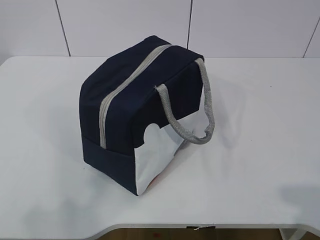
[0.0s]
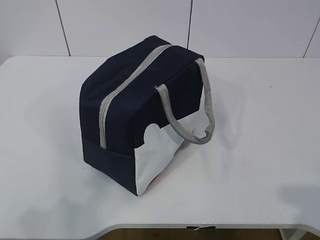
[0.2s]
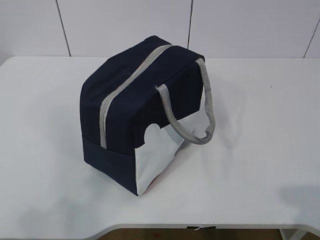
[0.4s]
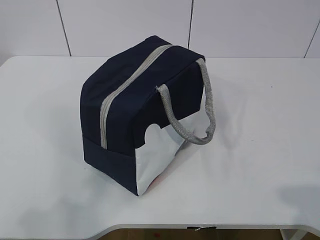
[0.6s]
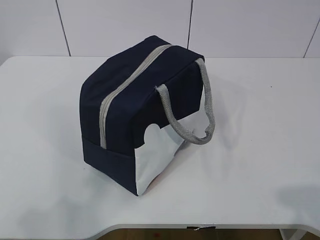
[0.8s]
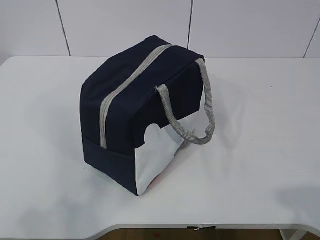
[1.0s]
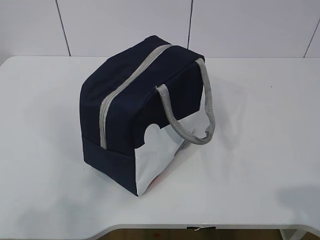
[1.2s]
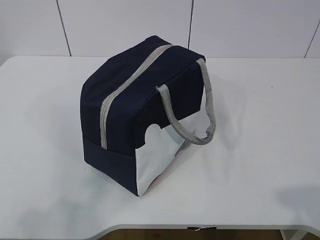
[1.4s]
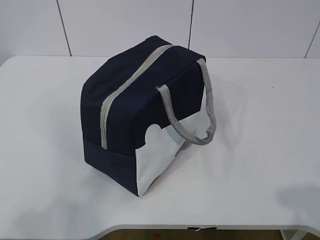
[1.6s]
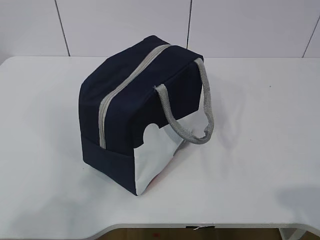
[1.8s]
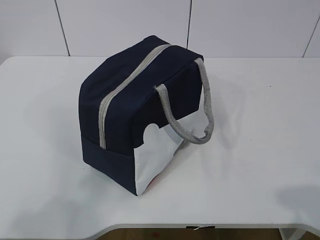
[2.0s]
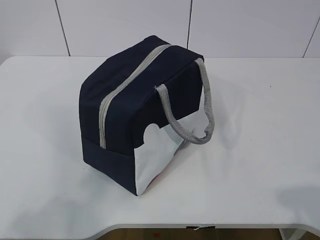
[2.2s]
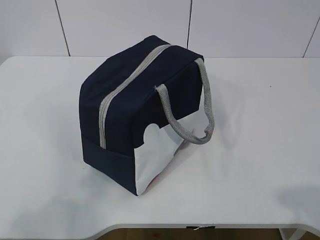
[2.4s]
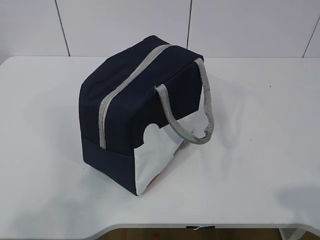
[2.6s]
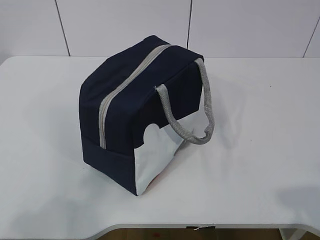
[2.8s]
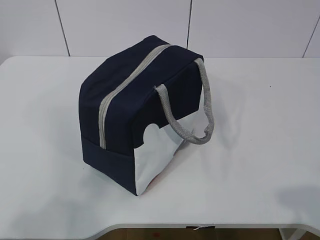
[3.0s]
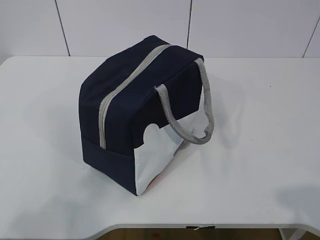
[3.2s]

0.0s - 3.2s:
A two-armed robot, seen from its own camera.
0.0s - 1.6s: There are only small adjustments of the grippers.
1.6s - 3.2s: Neither gripper changes place.

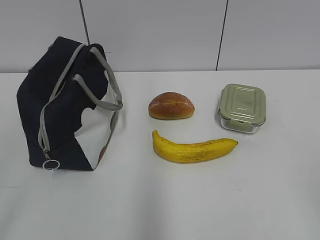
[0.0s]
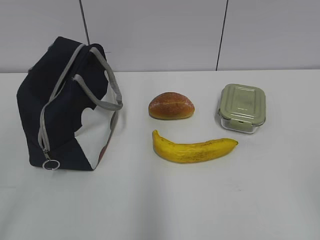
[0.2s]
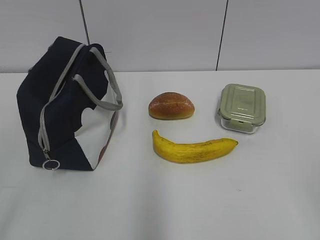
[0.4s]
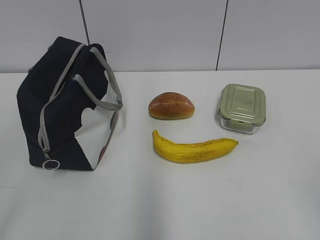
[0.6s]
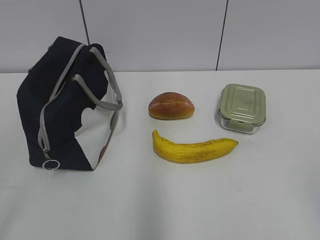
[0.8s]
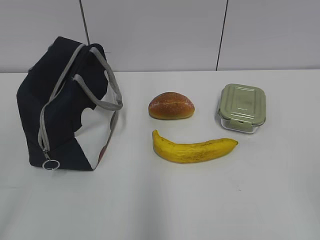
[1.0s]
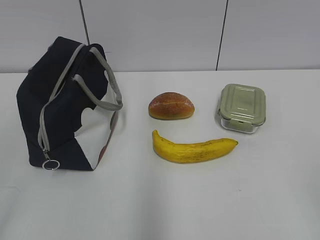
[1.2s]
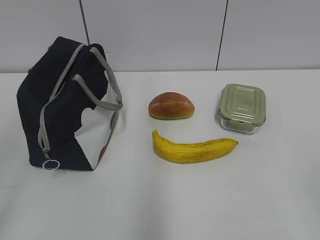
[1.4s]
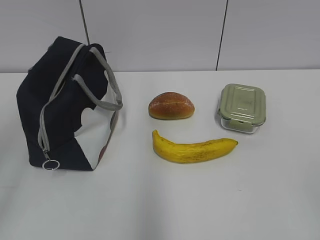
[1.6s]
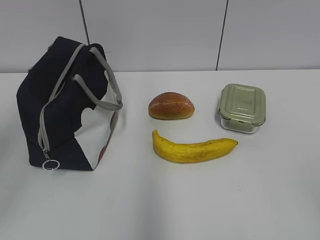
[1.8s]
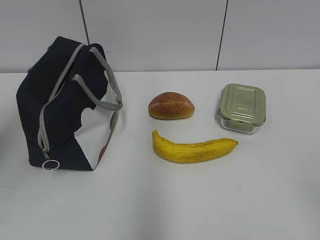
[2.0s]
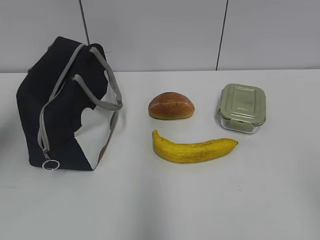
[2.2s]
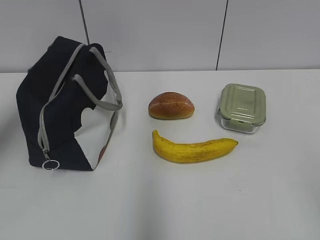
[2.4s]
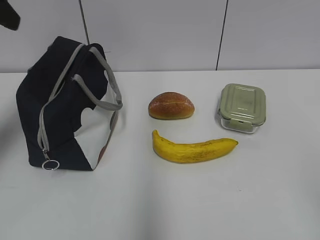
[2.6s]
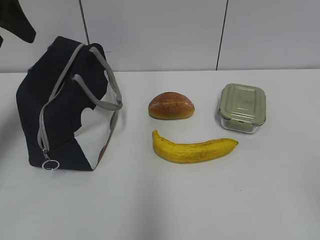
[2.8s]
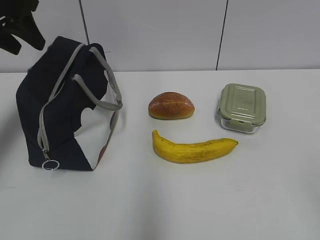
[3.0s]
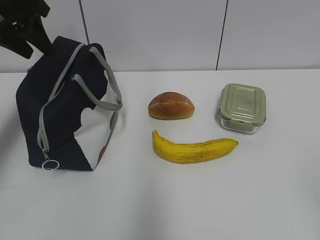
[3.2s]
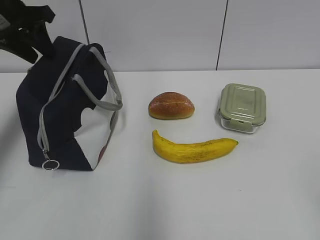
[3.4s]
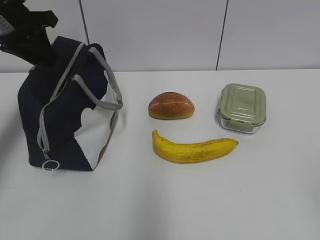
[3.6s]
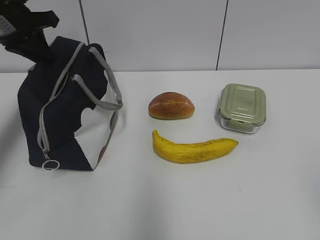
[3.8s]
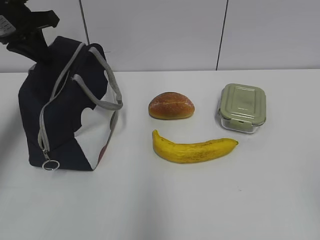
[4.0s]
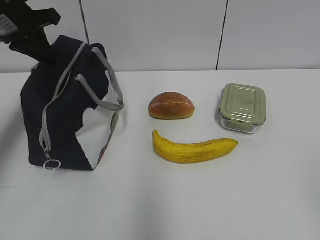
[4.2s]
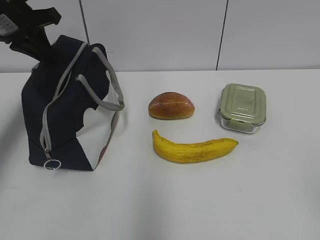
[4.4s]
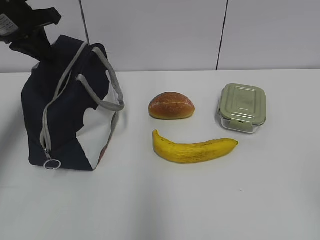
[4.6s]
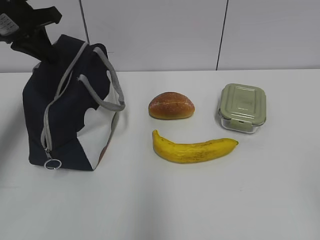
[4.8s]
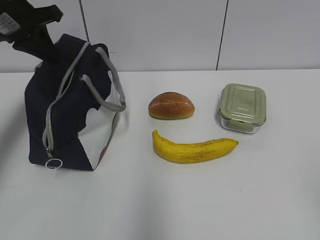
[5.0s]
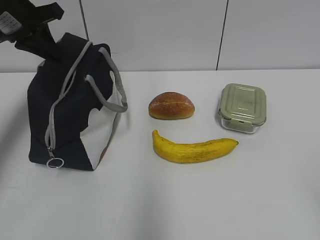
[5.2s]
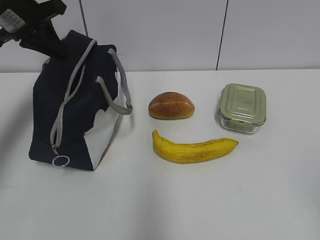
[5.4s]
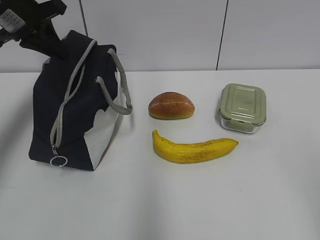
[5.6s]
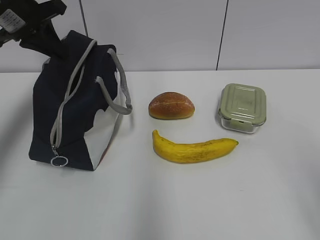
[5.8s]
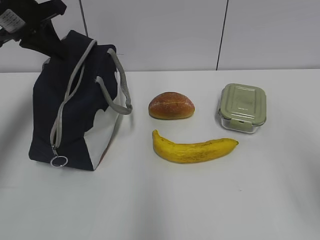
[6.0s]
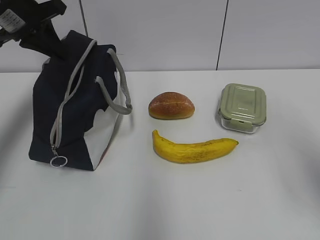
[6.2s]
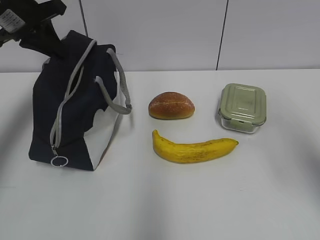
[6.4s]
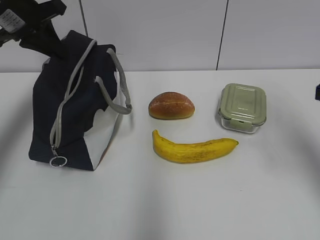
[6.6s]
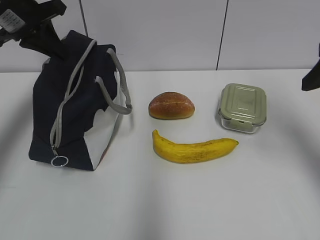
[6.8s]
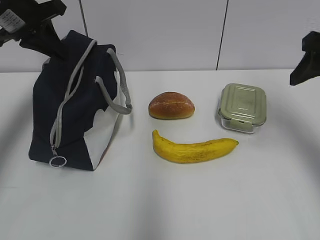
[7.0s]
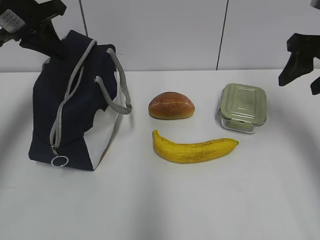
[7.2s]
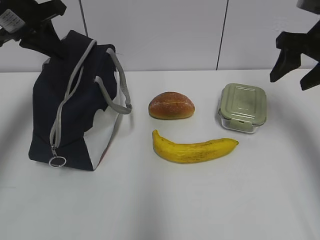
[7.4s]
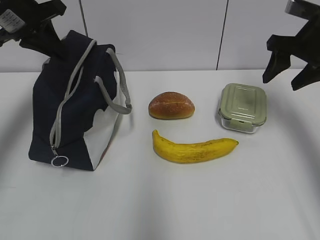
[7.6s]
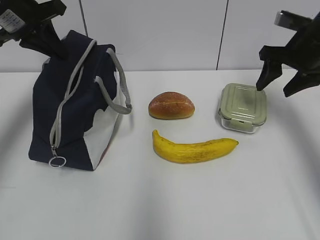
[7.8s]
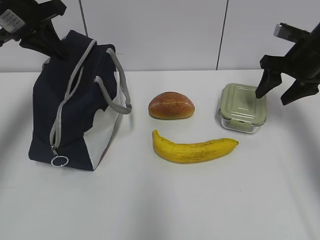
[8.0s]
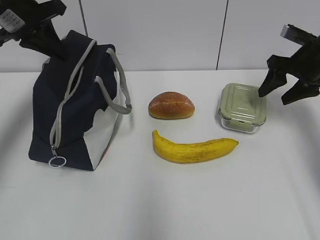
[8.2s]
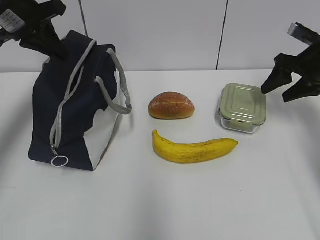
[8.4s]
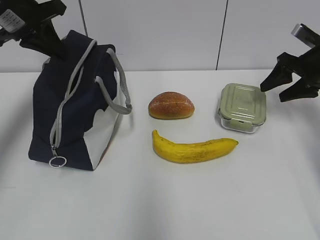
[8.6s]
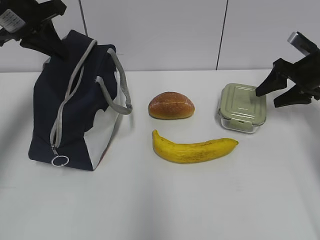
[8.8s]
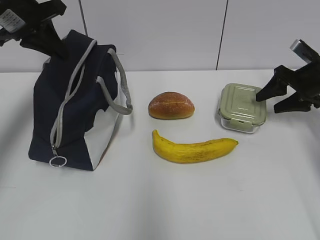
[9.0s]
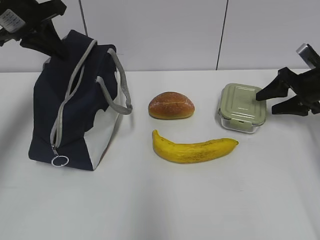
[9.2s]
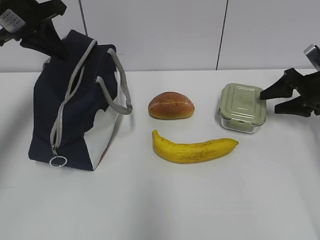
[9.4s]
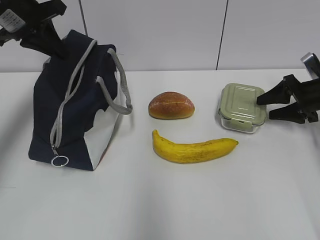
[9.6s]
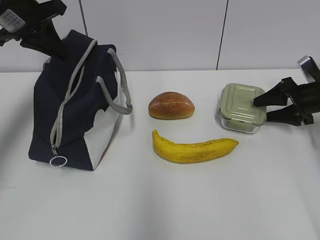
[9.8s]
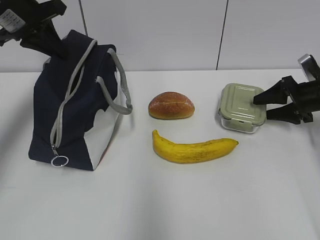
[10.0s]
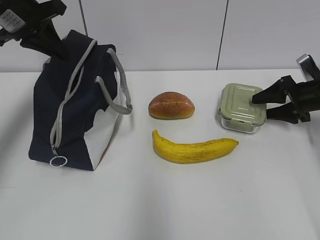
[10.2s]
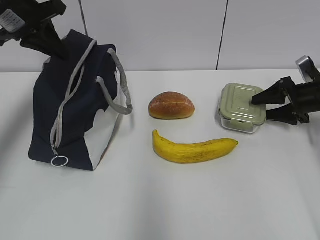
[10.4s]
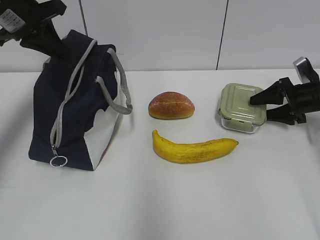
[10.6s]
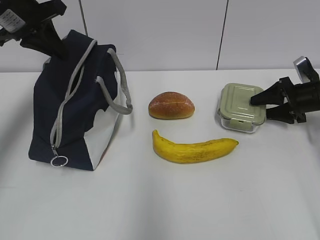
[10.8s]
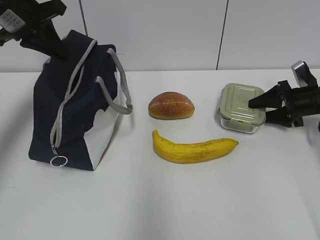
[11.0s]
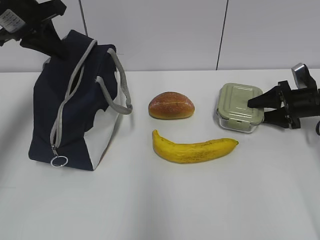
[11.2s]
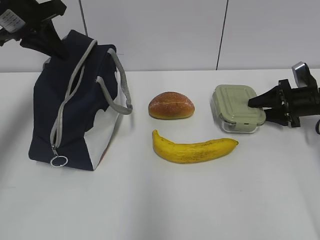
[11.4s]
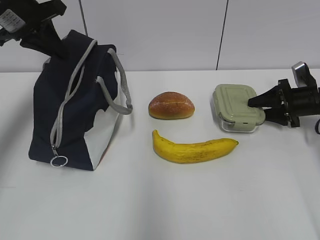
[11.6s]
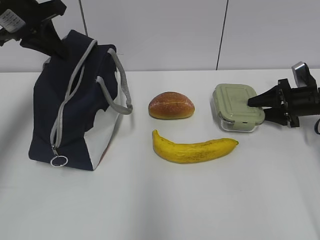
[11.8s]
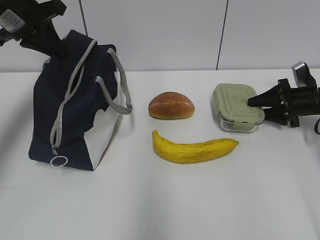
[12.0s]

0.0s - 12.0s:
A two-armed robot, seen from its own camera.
Step, 0.0s - 11.4s: Grab the lunch box with your right hand.
1.6s - 3.0s: The left gripper goes roughly 30 cm forward.
3.0s - 4.4s: The left gripper shifts by approximately 5 cm, and closes.
4.4s - 6.0s: The right gripper is displaced forward by about 10 cm.
6.0s - 7.6s: The right gripper shifts about 30 cm forward.
7.6s - 9.0s: The right gripper goes about 15 cm downward and to the right.
9.0s - 10.4s: The right gripper shifts by some 5 cm.
10.4s - 12.0s: There are only small adjustments of the grippers.

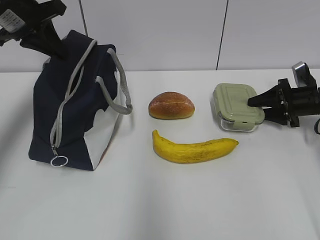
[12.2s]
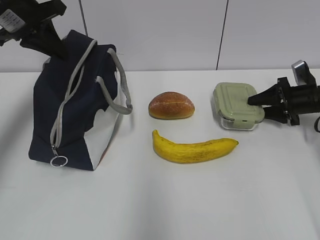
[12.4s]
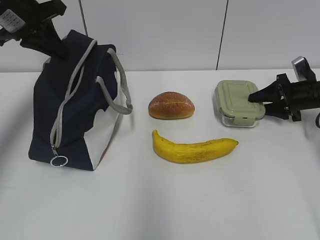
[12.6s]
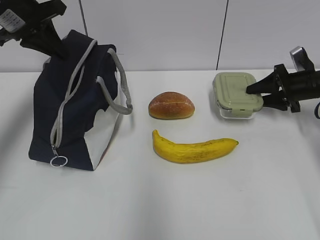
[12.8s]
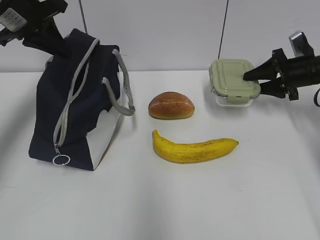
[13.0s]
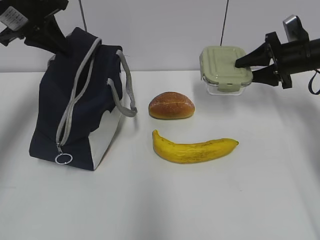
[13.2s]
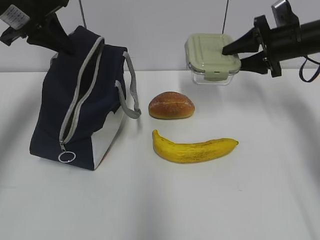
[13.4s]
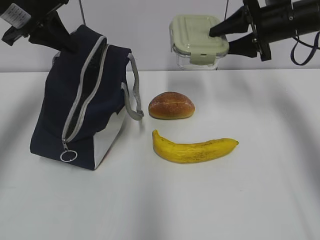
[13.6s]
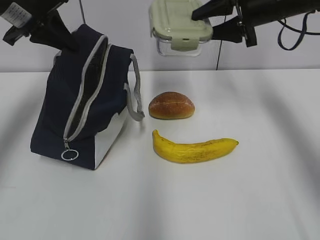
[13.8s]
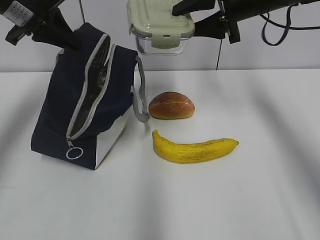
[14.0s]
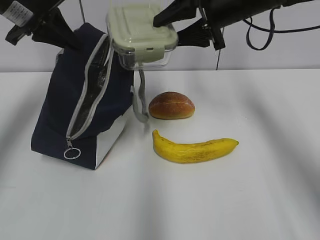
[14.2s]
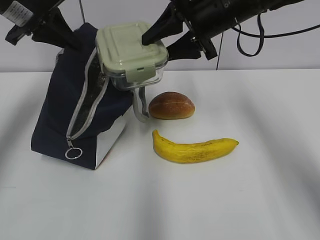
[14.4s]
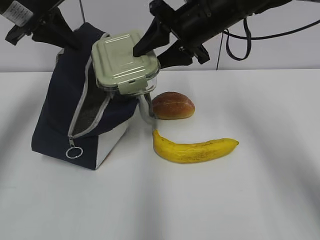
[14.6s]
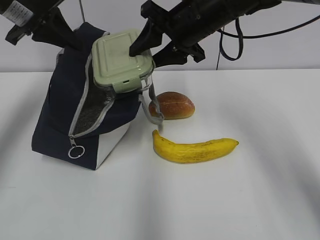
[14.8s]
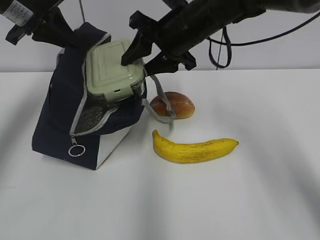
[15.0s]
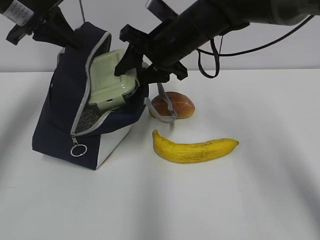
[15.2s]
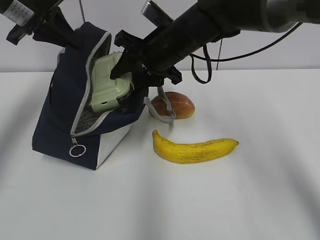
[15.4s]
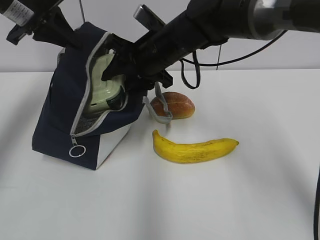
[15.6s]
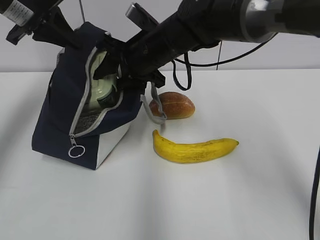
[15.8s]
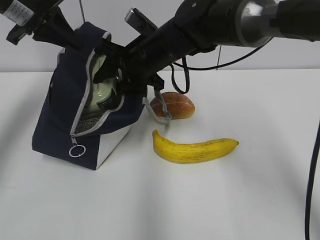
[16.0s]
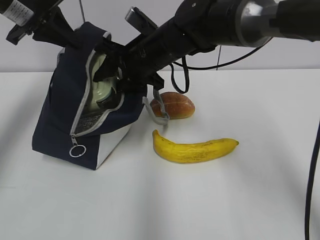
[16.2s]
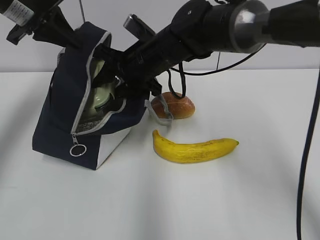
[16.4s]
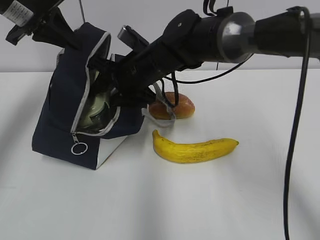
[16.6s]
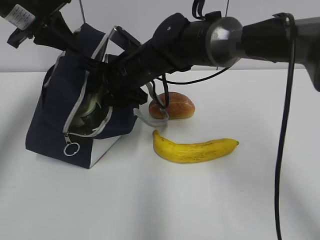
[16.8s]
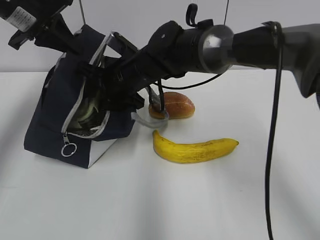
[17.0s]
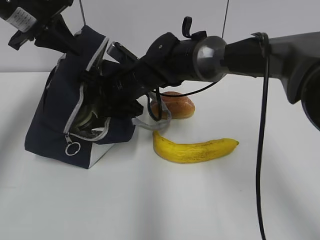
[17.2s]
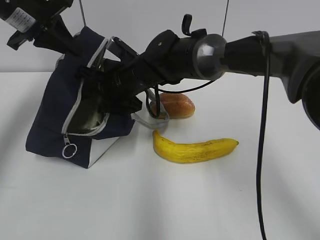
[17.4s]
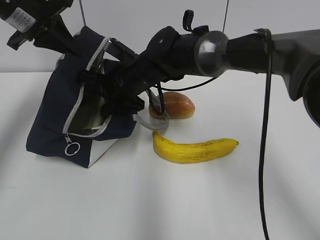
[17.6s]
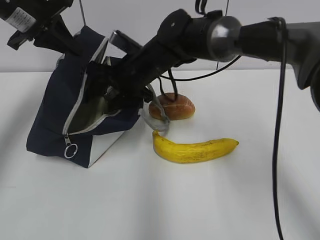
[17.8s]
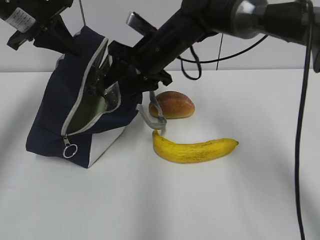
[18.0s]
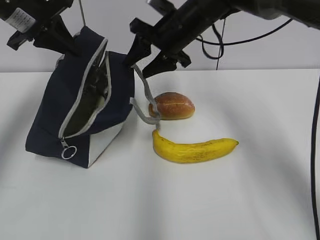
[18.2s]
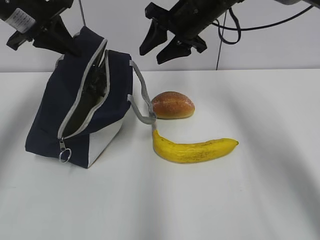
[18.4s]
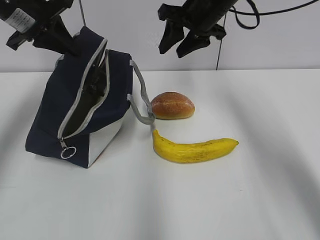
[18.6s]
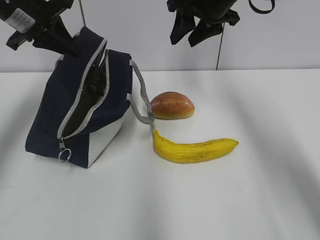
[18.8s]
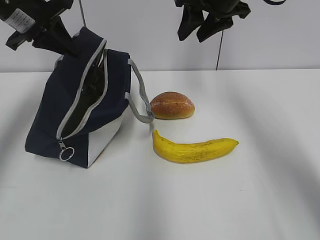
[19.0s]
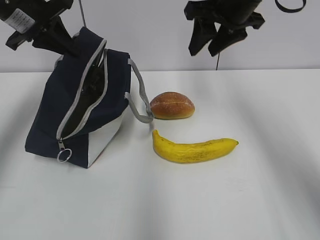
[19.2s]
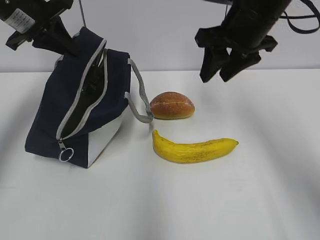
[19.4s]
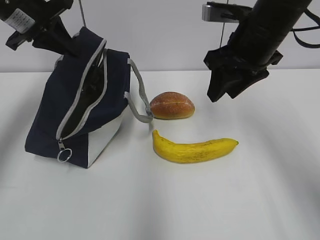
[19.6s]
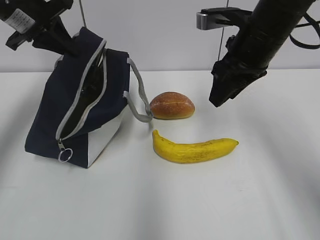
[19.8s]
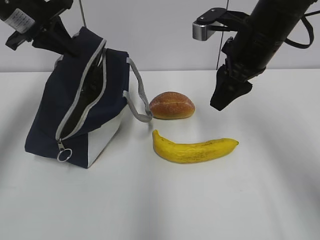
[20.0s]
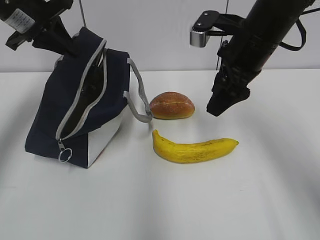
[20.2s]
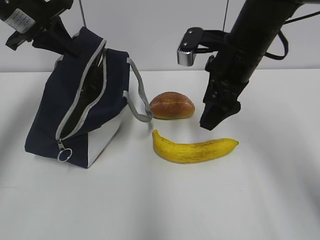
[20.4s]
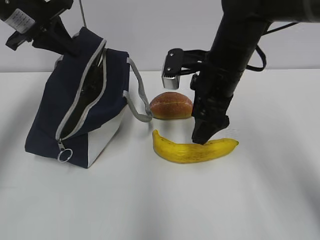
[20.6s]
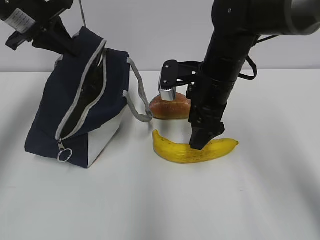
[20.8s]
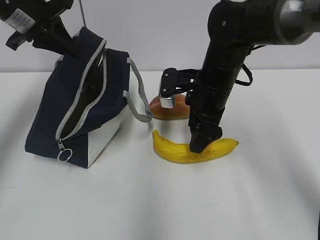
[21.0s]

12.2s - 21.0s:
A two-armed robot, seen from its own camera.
Step, 14.6s - 17.4s: Place it into the bag with your right hand.
12.2s - 13.6s: The right gripper travels upward and to the left by roughly 20 cm.
13.6s - 15.2s: The right gripper shifts some 20 cm to the left.
15.2s - 16.6s: The right gripper shifts about 10 cm to the left and downward.
16.6s - 18.0s: The right gripper goes approximately 5 cm to the right.
18.0s - 19.6s: The right gripper travels to the right, backward and upward by about 15 cm.
19.6s - 21.0s: The right gripper moves downward and to the left, approximately 10 cm.
